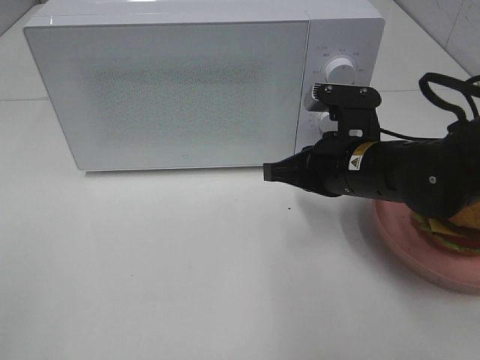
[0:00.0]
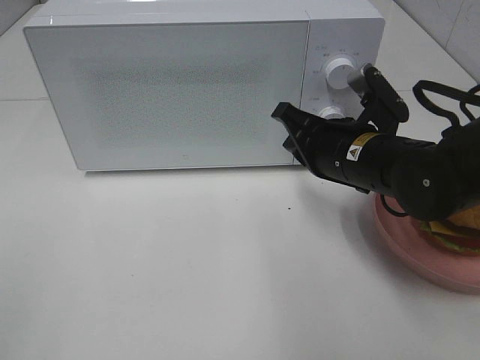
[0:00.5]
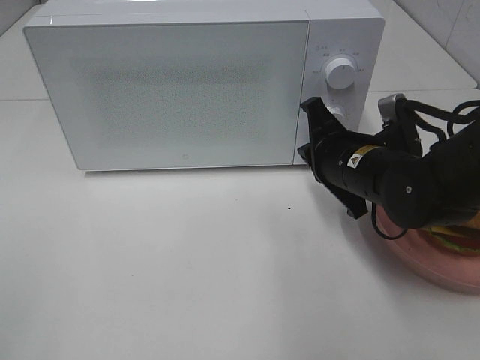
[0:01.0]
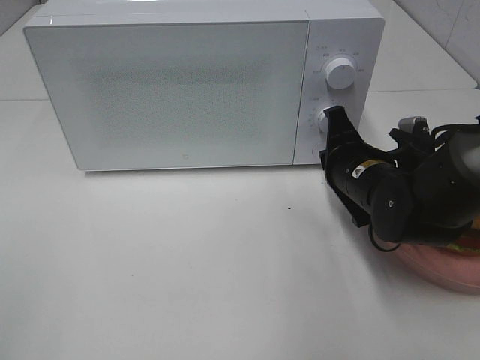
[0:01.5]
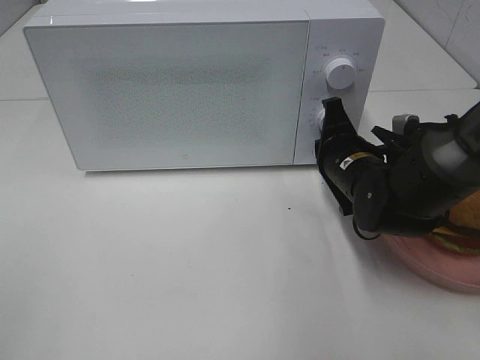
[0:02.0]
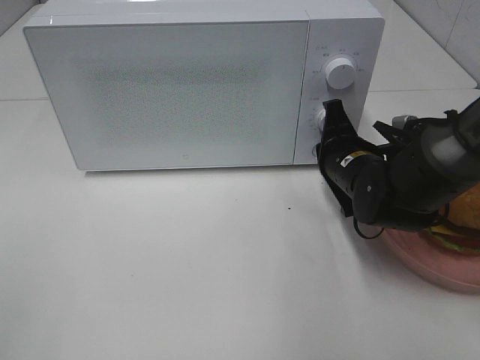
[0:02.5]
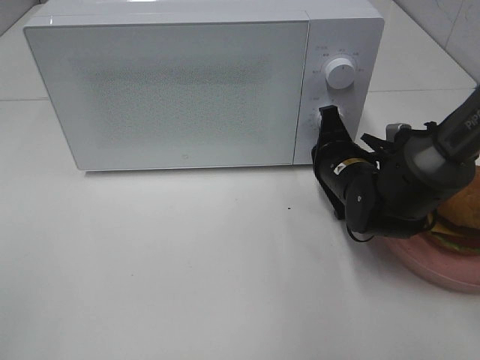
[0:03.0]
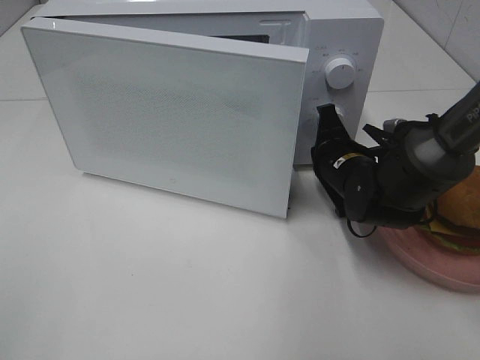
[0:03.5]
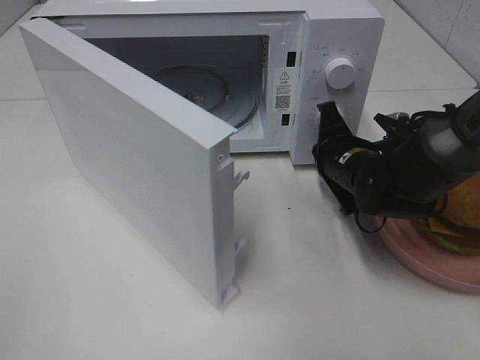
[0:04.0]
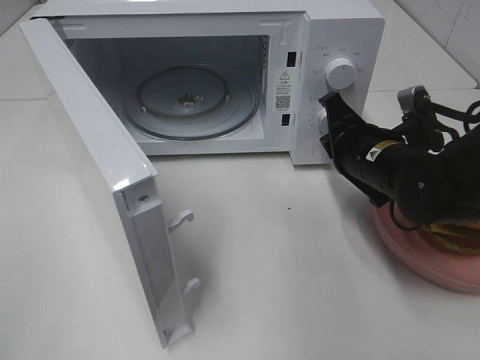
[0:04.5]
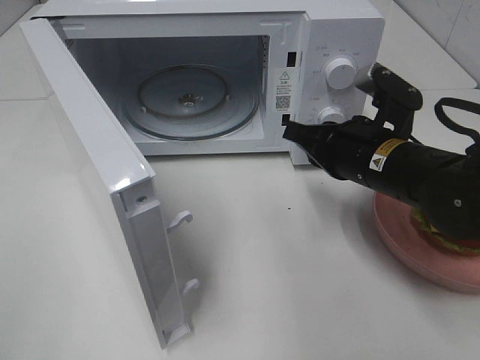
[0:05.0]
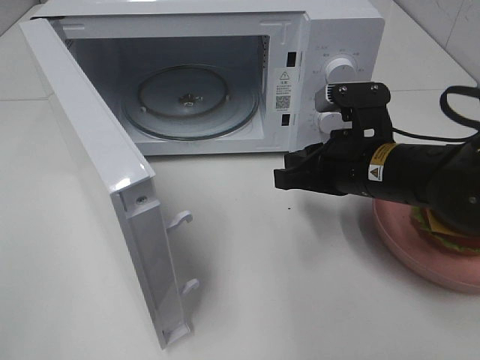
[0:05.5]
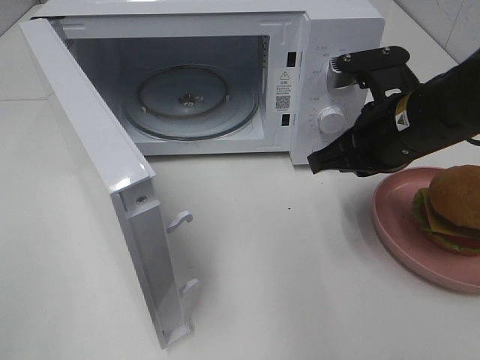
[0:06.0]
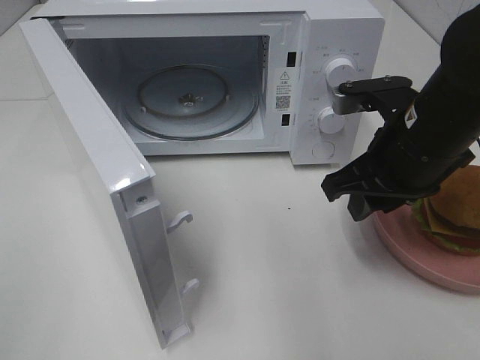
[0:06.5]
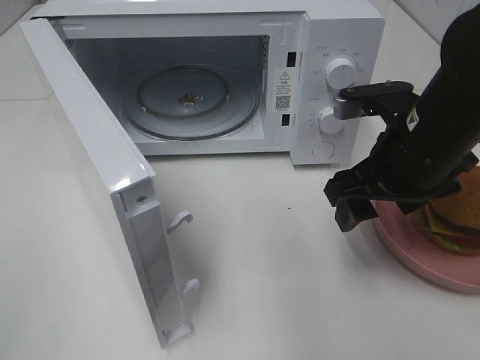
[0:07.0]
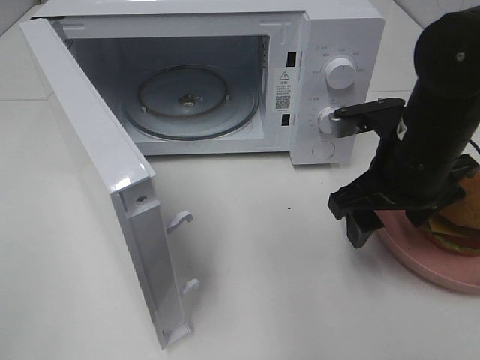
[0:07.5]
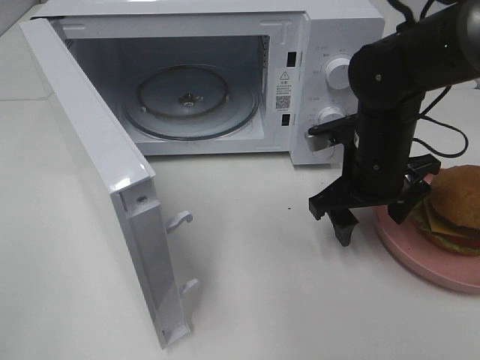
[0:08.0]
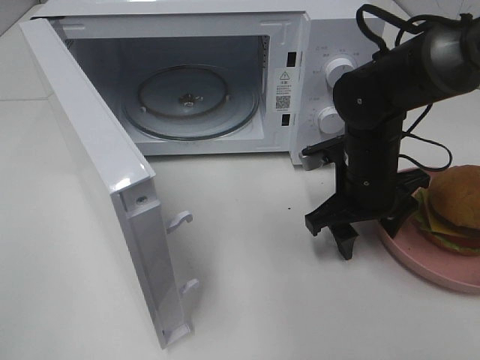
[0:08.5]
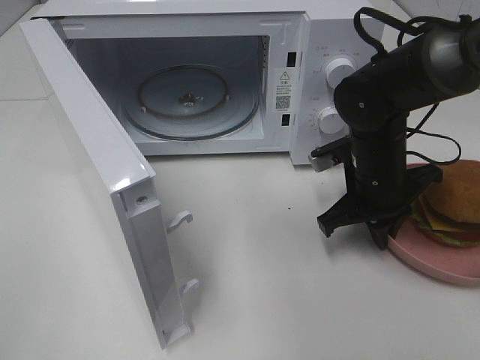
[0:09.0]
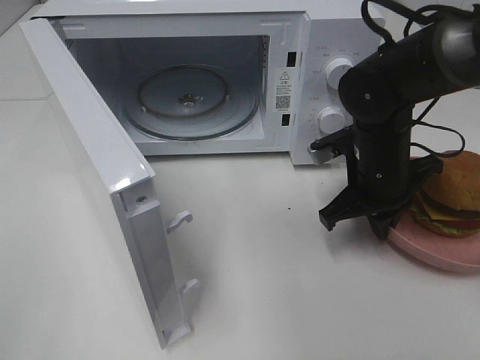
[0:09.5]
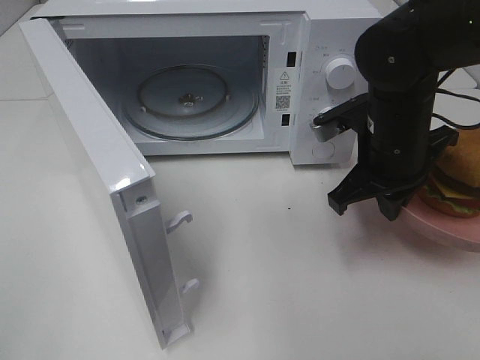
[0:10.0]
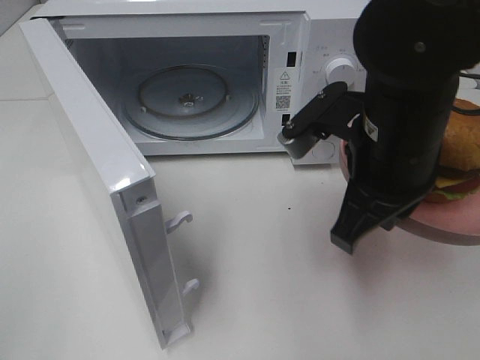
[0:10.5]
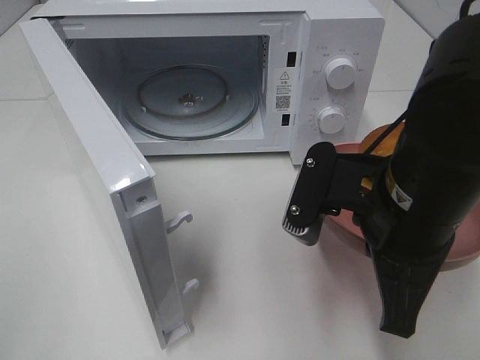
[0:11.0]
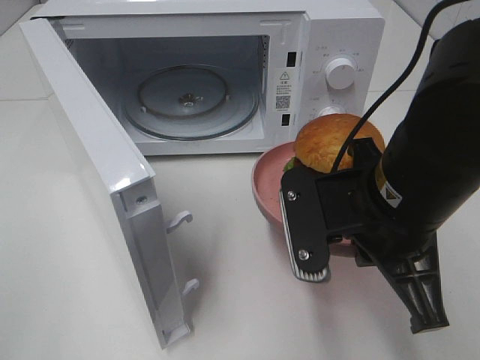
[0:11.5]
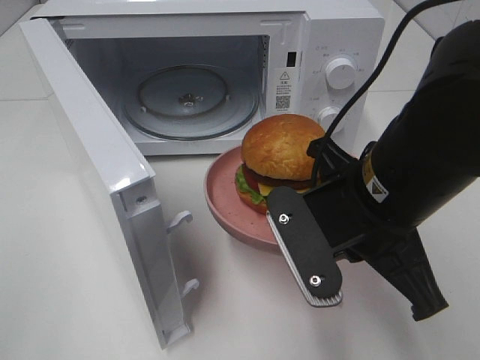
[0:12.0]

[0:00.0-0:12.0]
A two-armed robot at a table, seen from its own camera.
Task of the whole recording: Heat the burger.
Step, 0:00.0 to 0:04.0: Right hand: press the switch.
Step, 0:04.5 to 0:09.0: Right hand: grab the plate with the hamburger.
0:00.0 to 0:02.0: The right gripper shifts by approximately 5 cm.
0:04.0 to 0:06.0: The right gripper travels upward and backward by approximately 15 cm.
0:06.0 to 0:08.0: The right gripper shifts roughly 5 cm downward, and opens.
0:08.0 to 0:10.0: The right gripper closes its fingers.
0:10.0 to 0:12.0: The right gripper moves backward and to the left, roughly 15 cm.

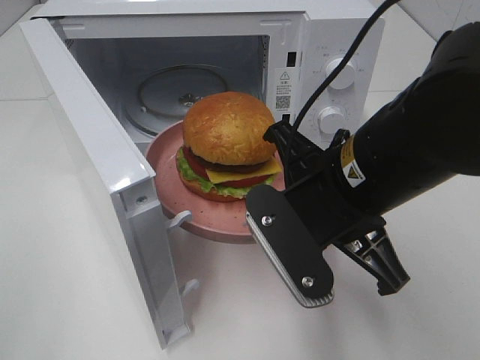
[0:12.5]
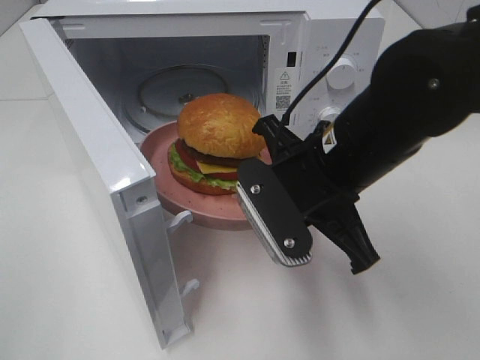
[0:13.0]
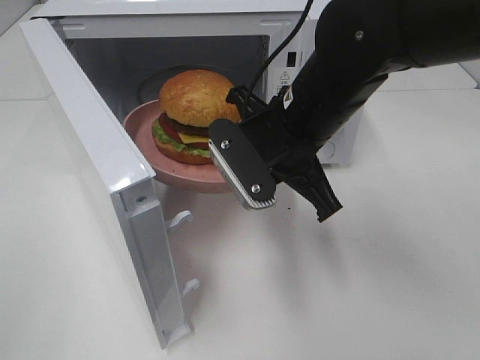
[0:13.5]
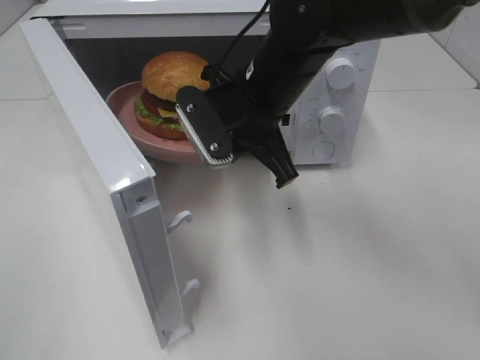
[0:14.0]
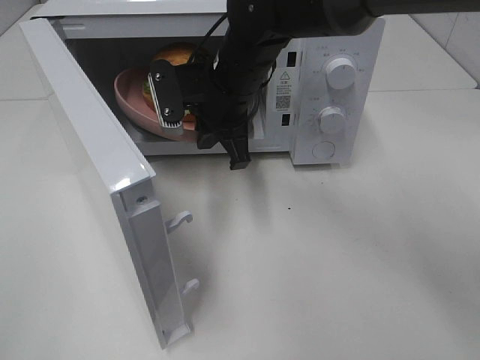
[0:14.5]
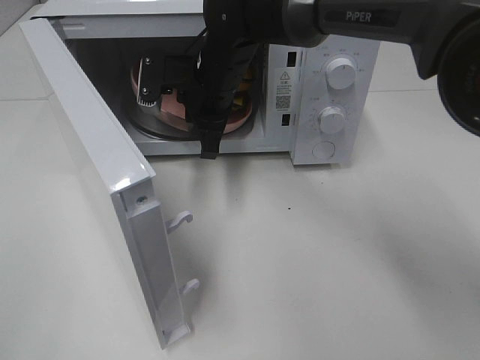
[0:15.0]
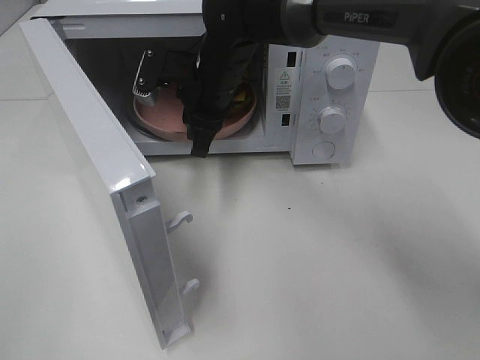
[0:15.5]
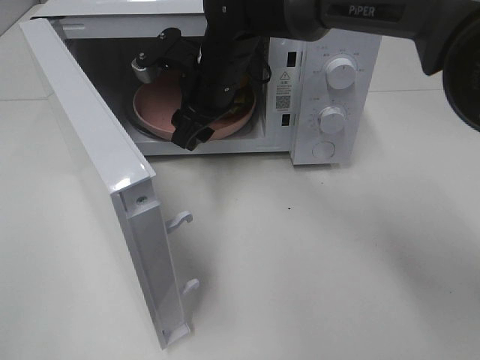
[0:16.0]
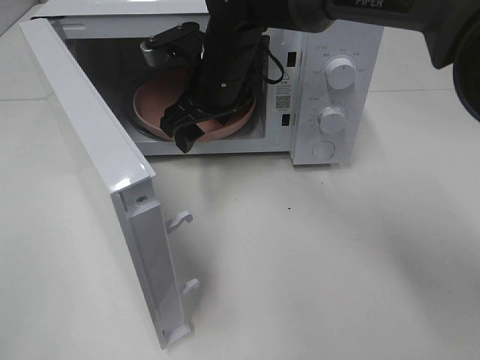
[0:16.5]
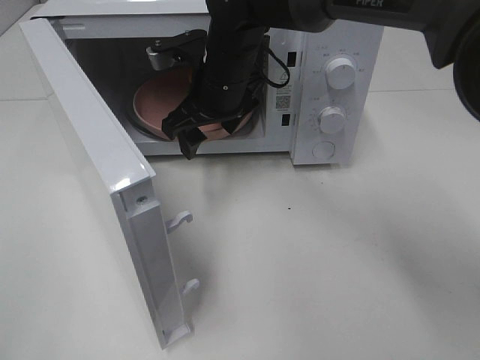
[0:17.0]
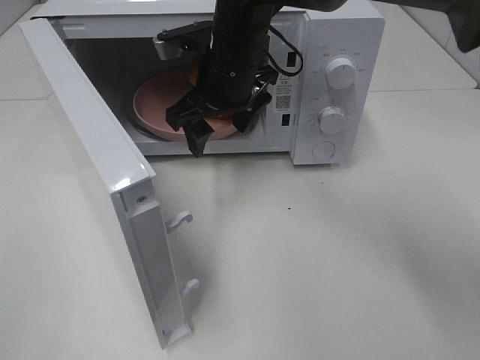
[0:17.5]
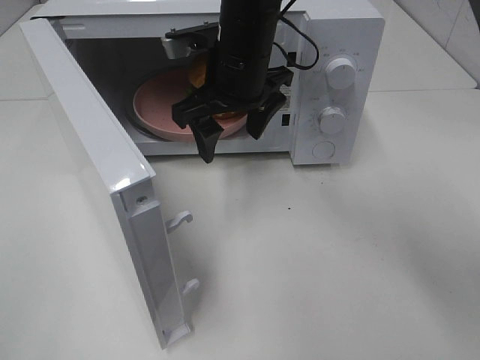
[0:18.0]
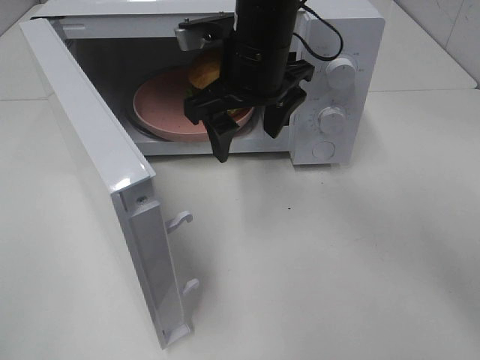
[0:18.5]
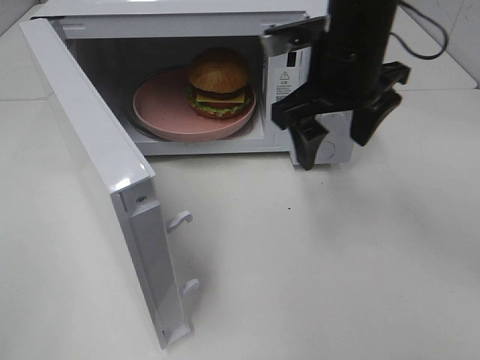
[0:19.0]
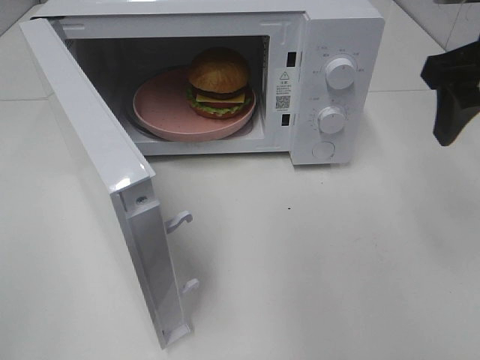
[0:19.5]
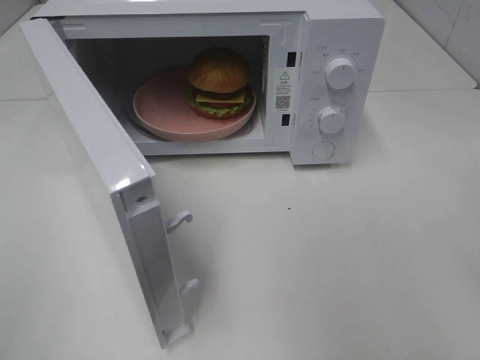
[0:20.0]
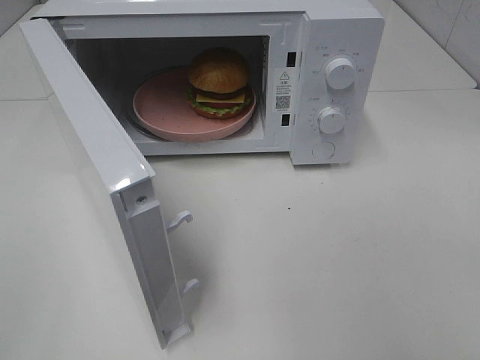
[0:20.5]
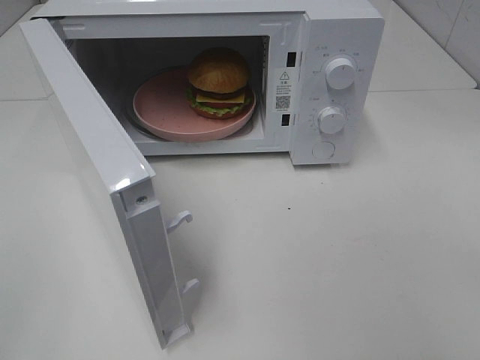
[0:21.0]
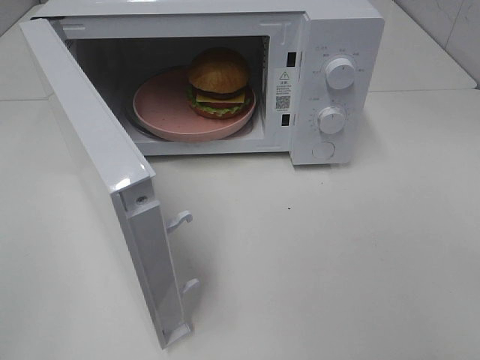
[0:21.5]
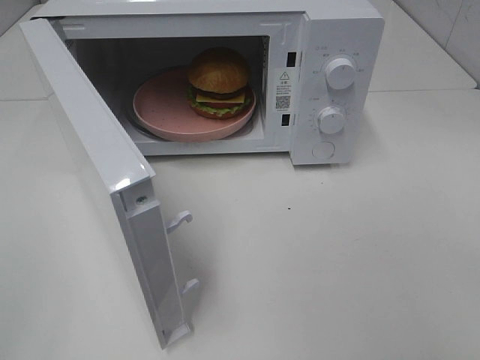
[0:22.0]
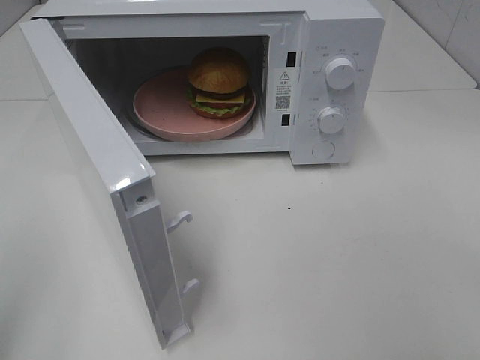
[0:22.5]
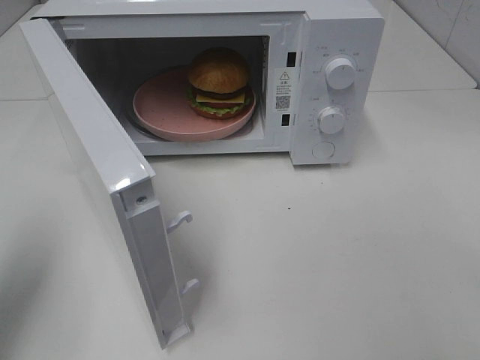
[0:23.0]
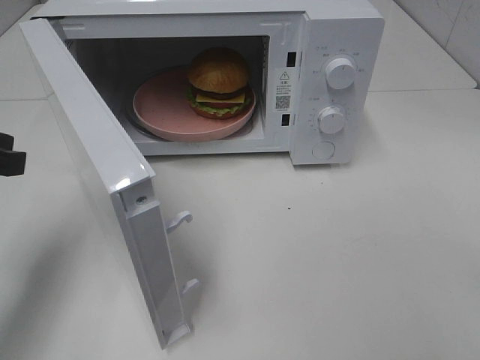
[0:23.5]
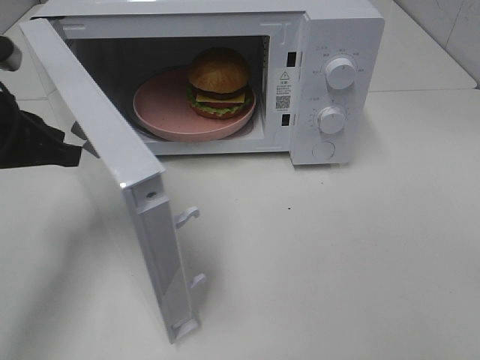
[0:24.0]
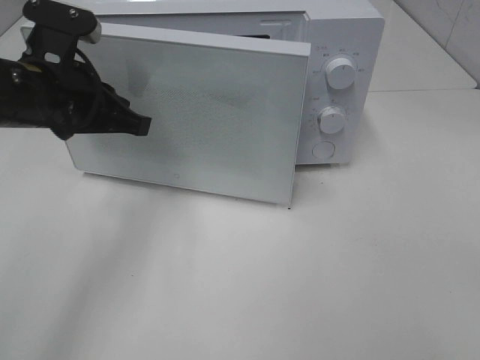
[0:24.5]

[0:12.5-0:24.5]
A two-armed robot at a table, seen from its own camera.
Task of the whole recording: Heat the burger.
Step, 0:12.5 to 0:15.5: Right hand: place the plate in the microwave.
0:12.5 to 0:14.5: The right gripper heads forward and to the left, covering about 20 cm.
0:14.5 to 0:16.5: The right gripper opens its fingers.
0:16.5 to 0:18.5: The right gripper heads upward, covering approximately 5 cm.
0:18.5 to 0:20.5: The right gripper shifts some 40 cm backward and to the right.
0:22.5 to 0:24.5: The left gripper heads forward and to the right, covering roughly 30 cm.

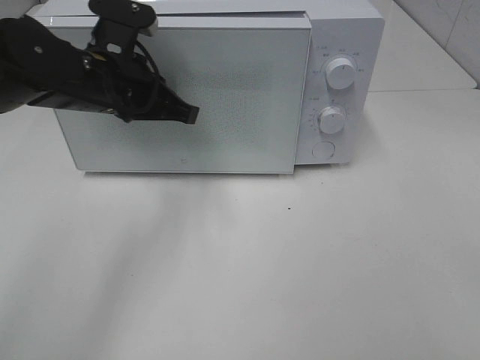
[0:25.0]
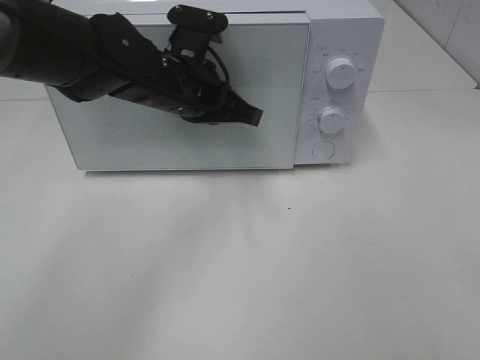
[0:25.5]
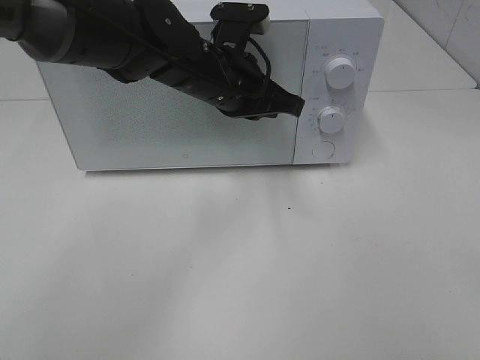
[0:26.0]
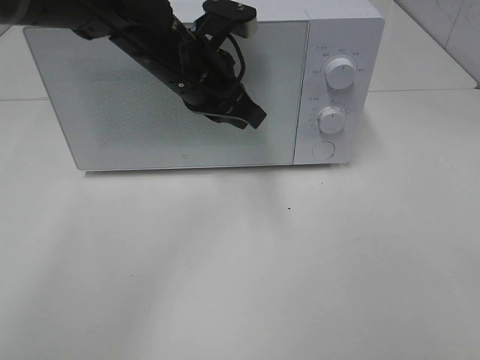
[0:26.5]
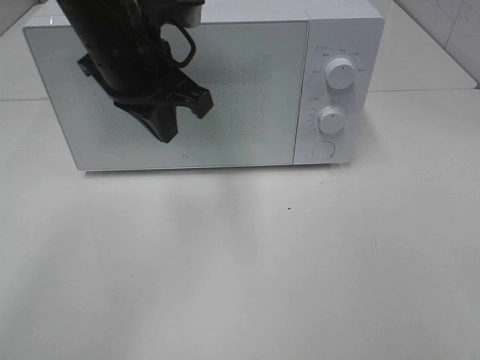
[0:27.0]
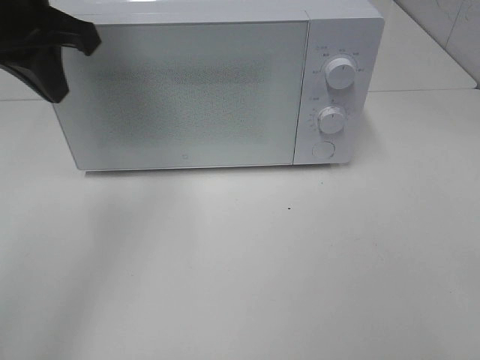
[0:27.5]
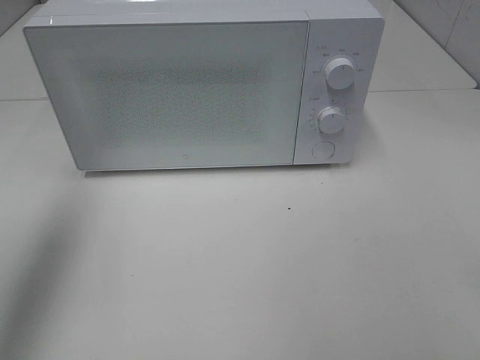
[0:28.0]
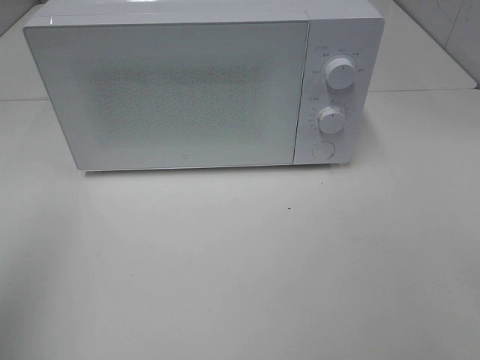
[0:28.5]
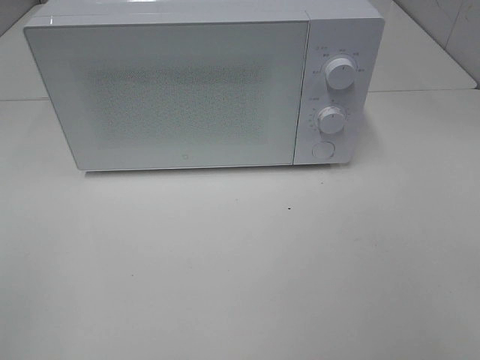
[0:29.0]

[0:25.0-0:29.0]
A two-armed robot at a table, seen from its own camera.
Task of the whole recording: Heat the burger.
0:25.0 to 0:27.0: The left gripper shifts roughly 5 cm upward, and moves approximately 10 cm to the right and comes back.
0:27.0 to 0:29.0: The left gripper heads backward and to the left, covering some 40 cm.
